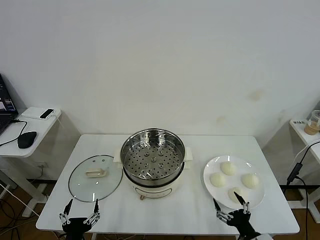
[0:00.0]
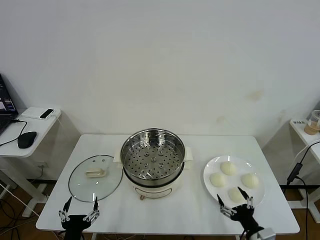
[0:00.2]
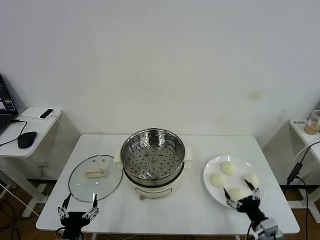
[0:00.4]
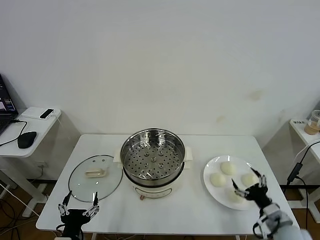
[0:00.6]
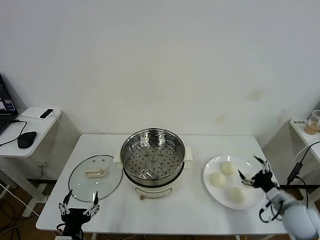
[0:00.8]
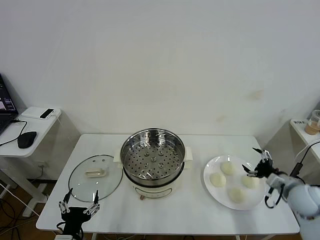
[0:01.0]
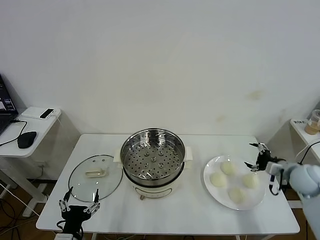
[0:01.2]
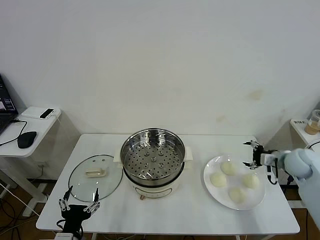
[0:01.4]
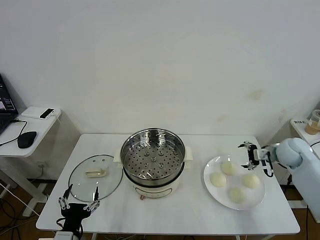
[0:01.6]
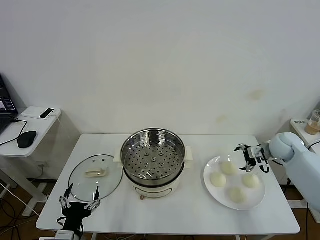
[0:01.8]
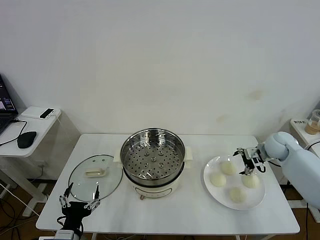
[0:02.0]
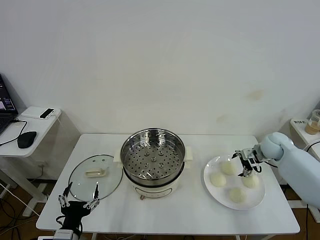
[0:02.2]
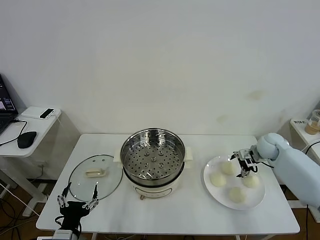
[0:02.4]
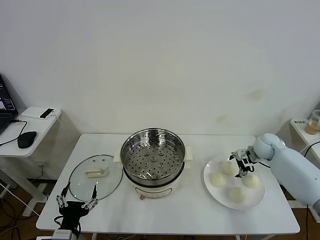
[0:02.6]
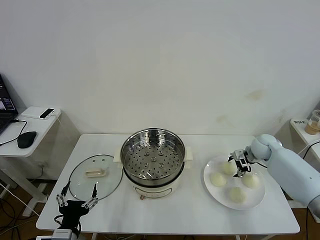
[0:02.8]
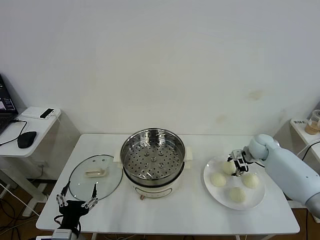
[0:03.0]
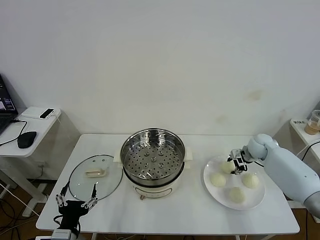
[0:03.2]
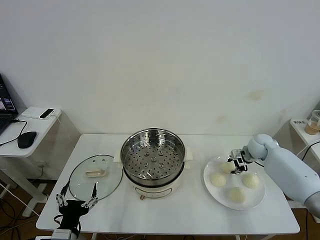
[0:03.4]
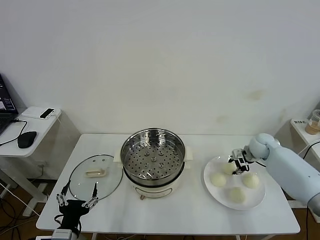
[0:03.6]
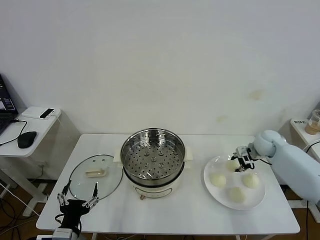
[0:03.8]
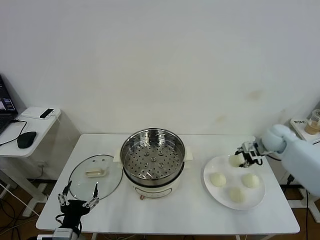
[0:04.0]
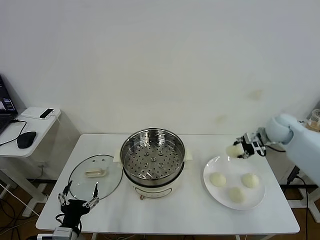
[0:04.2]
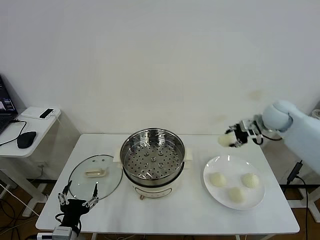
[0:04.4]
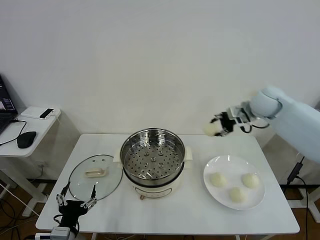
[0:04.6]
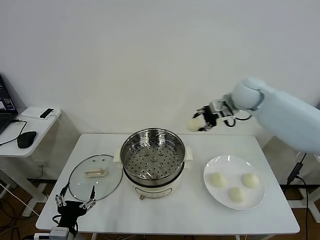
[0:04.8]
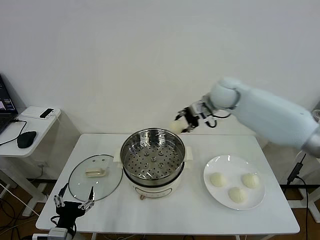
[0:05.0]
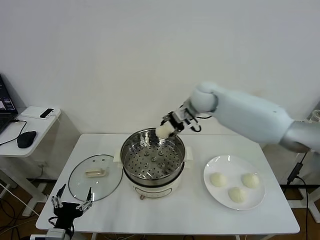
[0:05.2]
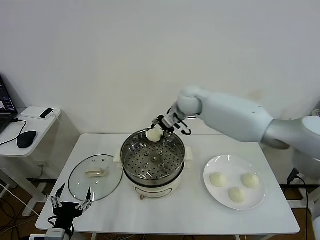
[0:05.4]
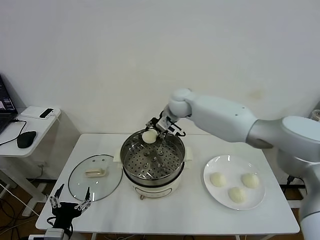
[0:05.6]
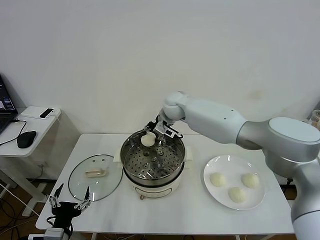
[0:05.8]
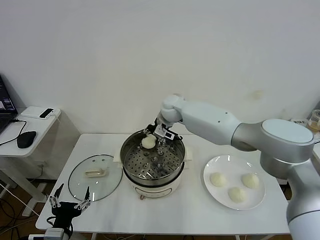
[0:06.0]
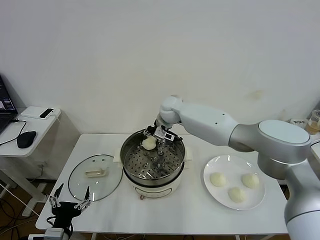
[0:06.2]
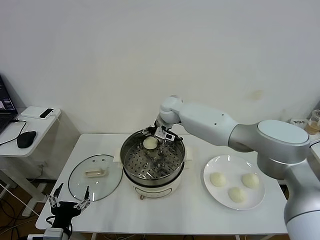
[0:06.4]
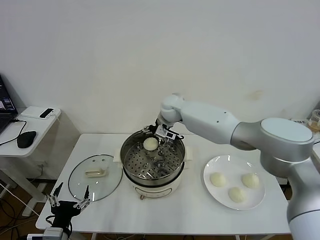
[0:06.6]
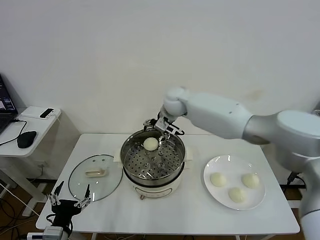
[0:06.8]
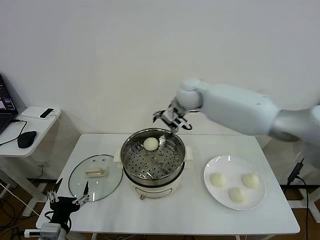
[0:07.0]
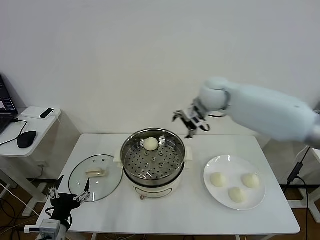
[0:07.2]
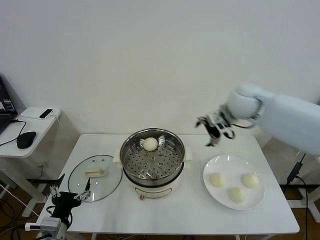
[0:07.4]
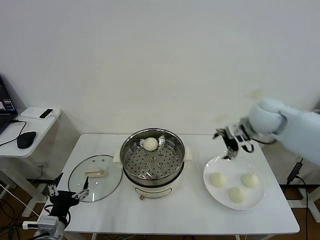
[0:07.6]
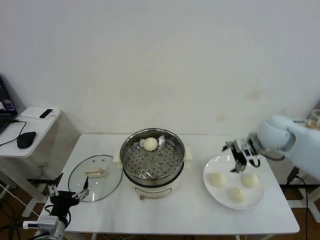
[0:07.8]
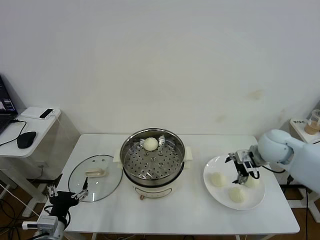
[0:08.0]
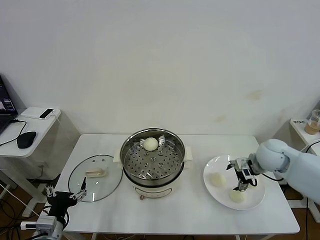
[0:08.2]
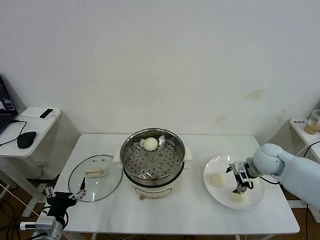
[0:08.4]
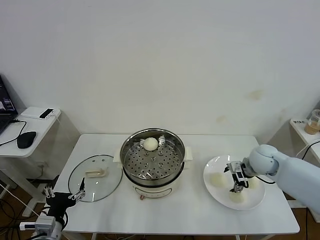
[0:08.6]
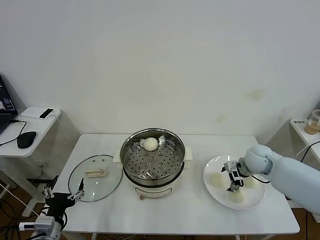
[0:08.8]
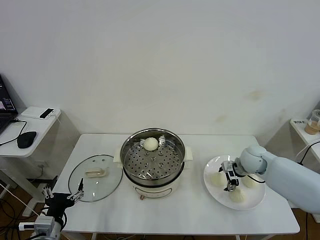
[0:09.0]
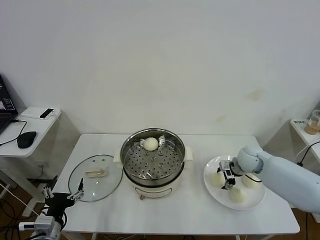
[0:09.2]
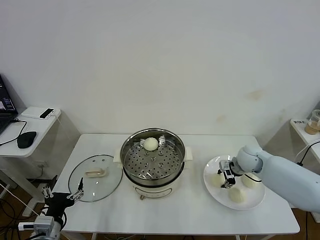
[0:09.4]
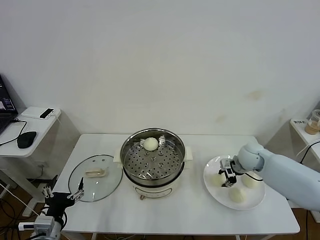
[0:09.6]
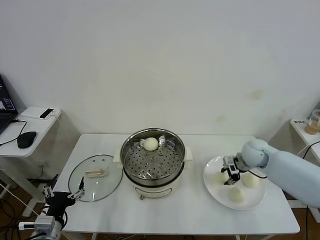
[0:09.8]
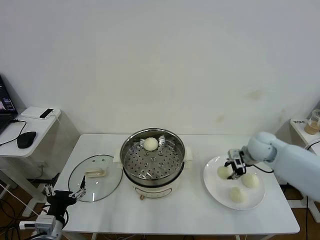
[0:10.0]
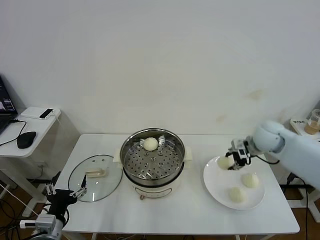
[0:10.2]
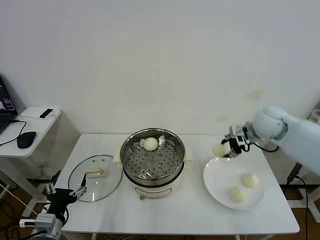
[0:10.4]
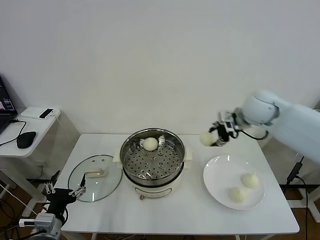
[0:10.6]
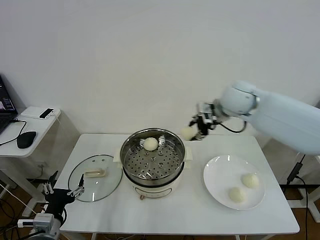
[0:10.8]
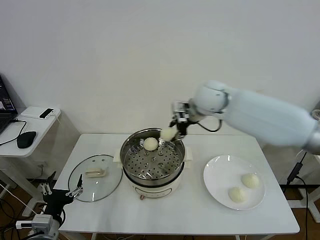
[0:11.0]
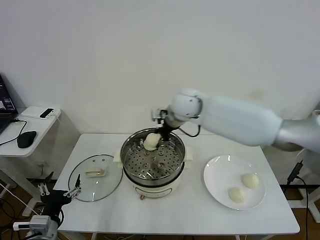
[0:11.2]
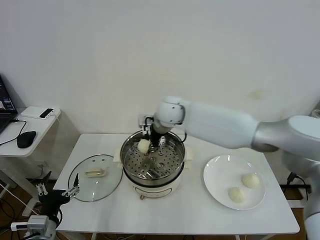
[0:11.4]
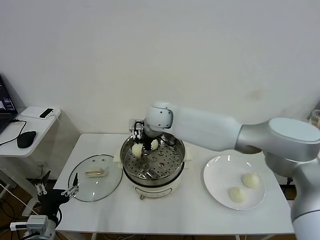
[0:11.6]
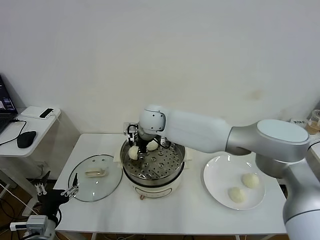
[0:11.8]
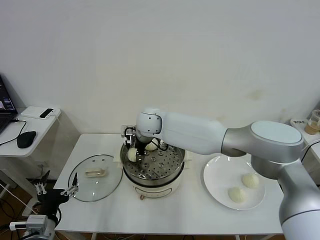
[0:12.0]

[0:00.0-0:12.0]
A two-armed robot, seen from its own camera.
Task of the whole recording: take steamed baozi put them in steamer then cover it.
Step, 0:00.0 to 0:03.4: Grasp the baozi in the plate with right gripper.
Step, 0:03.6 to 0:06.6: Place the baozi on the steamer with right gripper.
Step, 0:06.8 to 0:09.6: Grasp the baozi in the plate with right gripper.
0:01.6 to 0:03.0: The right gripper is displaced forward, downward and to the left by roughly 10 cm, and closes its fingers.
0:03.0 to 0:04.4: The right gripper is displaced upward by roughly 15 cm, and closes.
0:04.4 to 0:06.0: The right gripper goes some 35 cm to the left.
0:06.0 to 0:07.6: The right gripper shifts approximately 30 cm to the right and backward, and opens.
0:07.6 to 0:09.0: The right gripper travels downward by approximately 20 cm.
0:09.0 to 0:10.4: The right gripper travels upward by some 15 cm, and closes its fingers.
0:10.4 to 0:12.0: The right gripper moves to the left, some 35 cm.

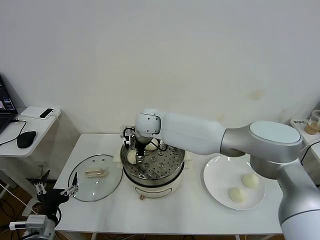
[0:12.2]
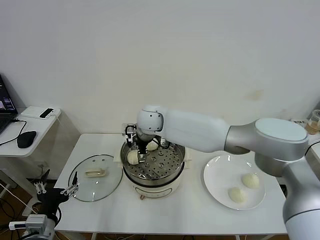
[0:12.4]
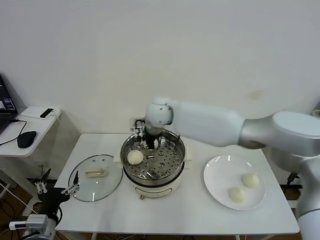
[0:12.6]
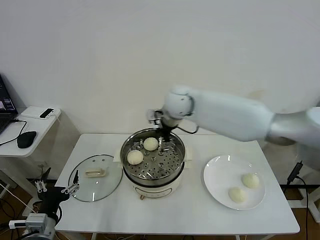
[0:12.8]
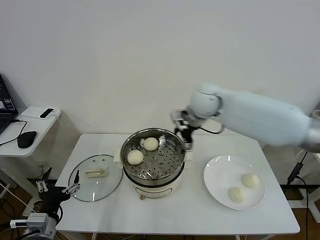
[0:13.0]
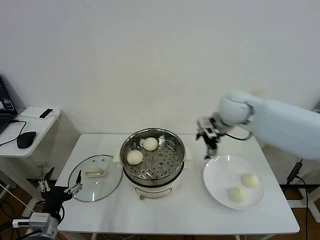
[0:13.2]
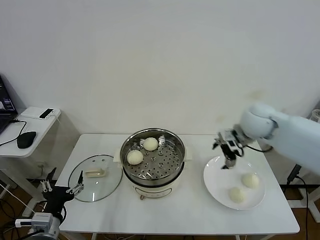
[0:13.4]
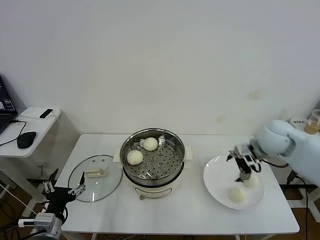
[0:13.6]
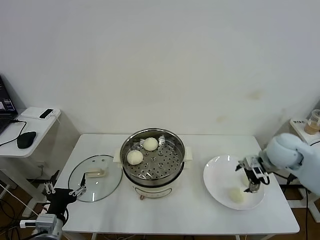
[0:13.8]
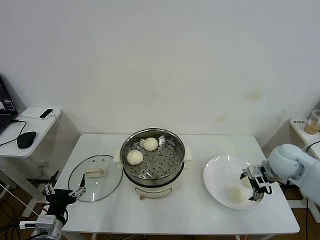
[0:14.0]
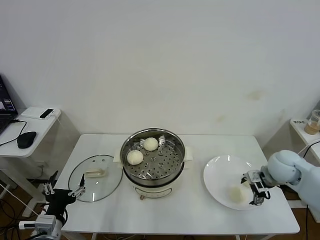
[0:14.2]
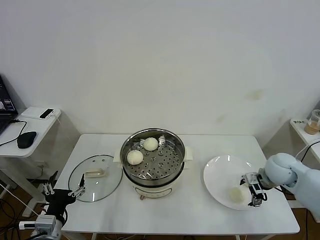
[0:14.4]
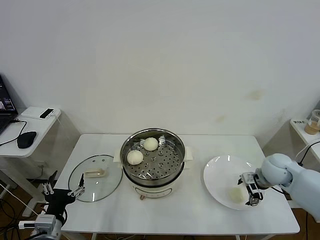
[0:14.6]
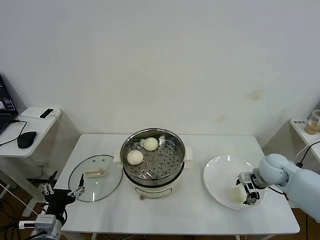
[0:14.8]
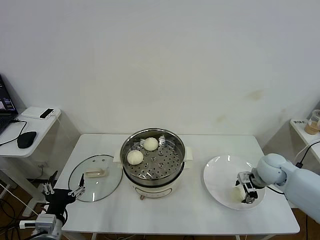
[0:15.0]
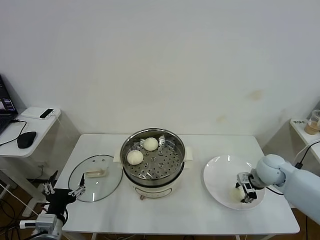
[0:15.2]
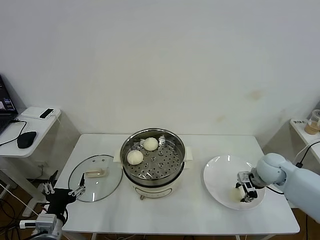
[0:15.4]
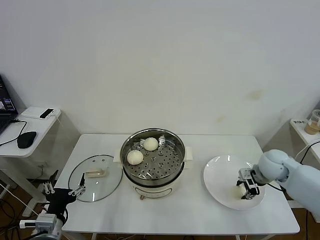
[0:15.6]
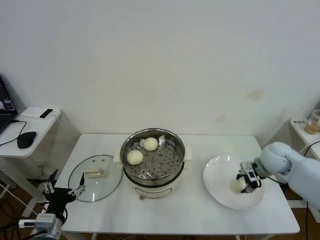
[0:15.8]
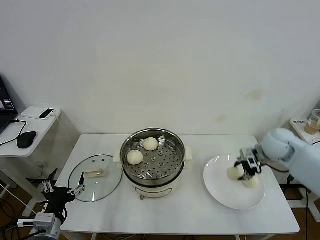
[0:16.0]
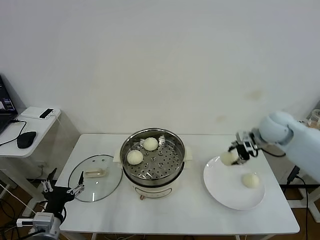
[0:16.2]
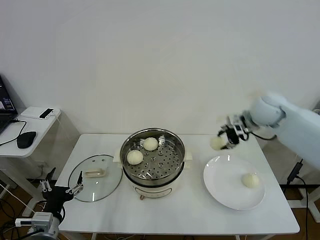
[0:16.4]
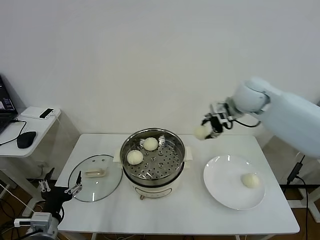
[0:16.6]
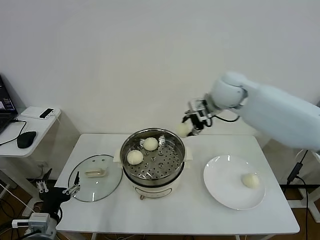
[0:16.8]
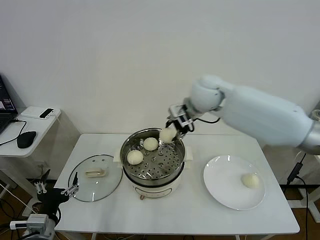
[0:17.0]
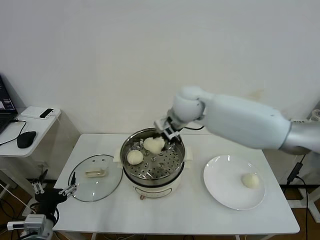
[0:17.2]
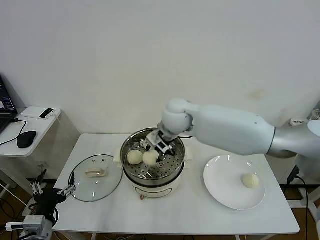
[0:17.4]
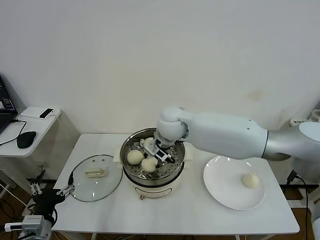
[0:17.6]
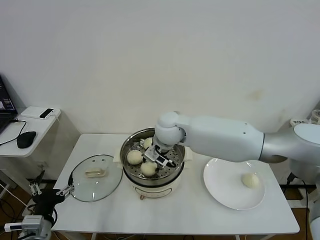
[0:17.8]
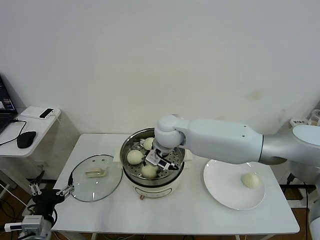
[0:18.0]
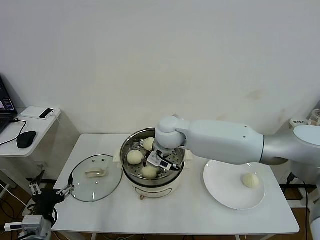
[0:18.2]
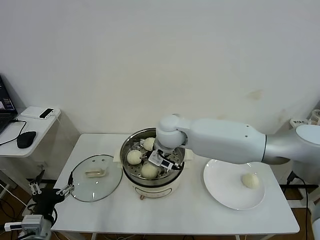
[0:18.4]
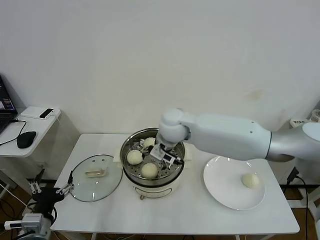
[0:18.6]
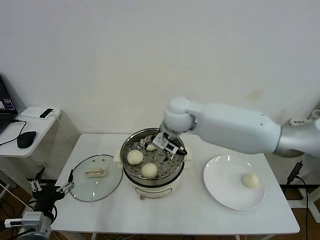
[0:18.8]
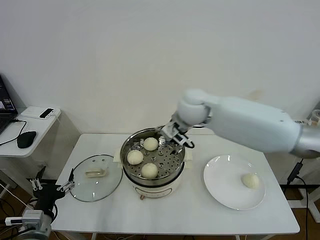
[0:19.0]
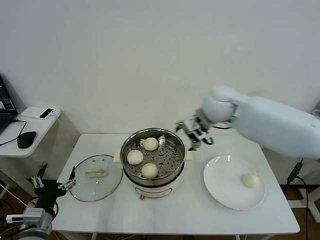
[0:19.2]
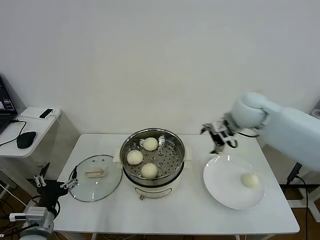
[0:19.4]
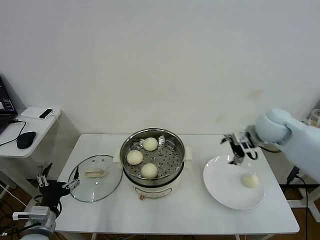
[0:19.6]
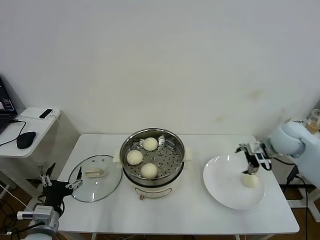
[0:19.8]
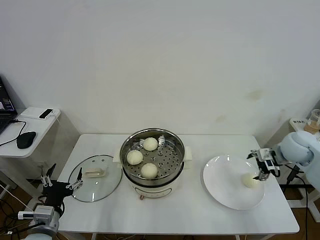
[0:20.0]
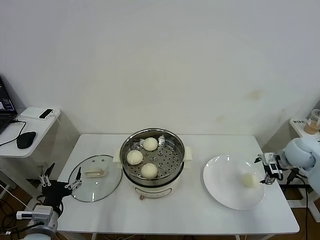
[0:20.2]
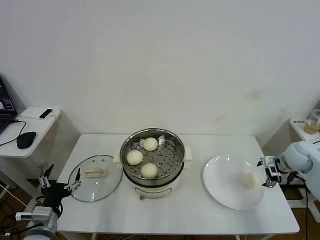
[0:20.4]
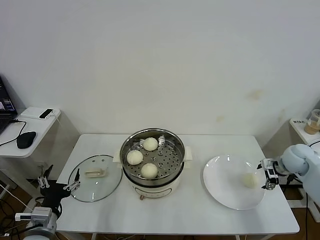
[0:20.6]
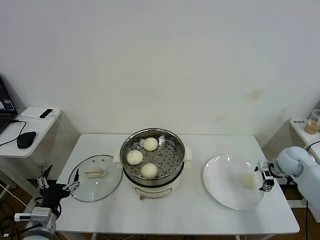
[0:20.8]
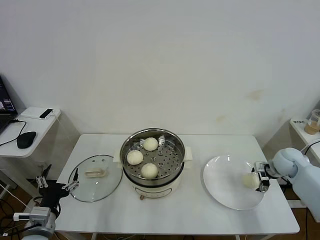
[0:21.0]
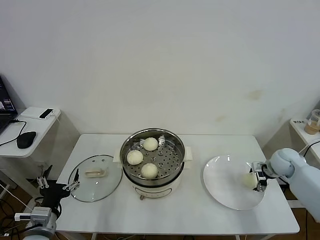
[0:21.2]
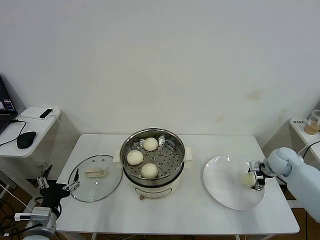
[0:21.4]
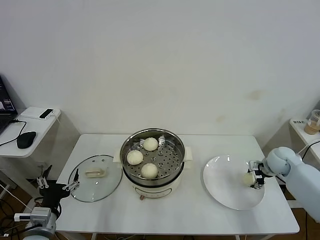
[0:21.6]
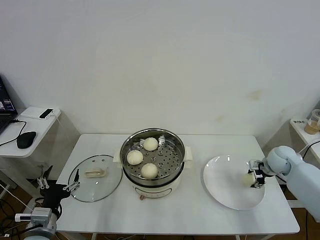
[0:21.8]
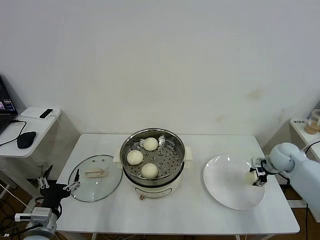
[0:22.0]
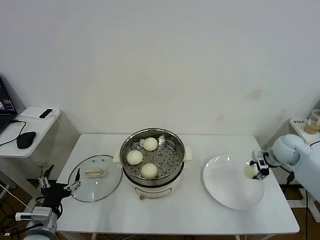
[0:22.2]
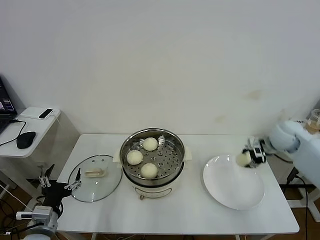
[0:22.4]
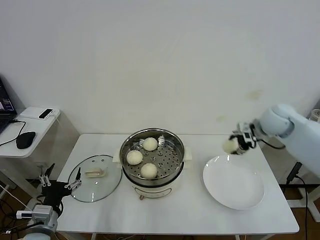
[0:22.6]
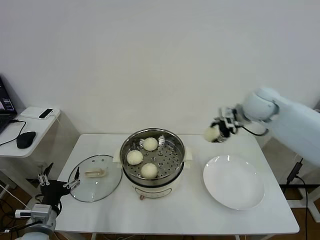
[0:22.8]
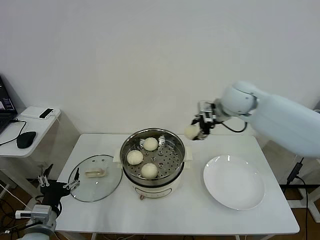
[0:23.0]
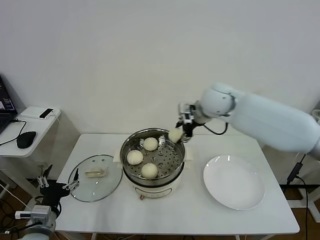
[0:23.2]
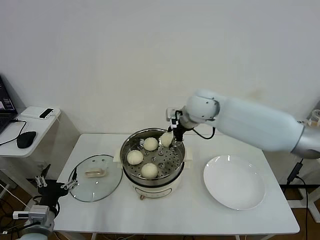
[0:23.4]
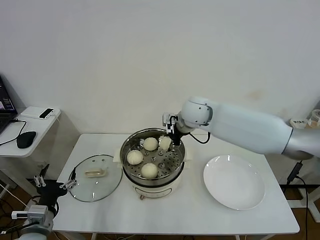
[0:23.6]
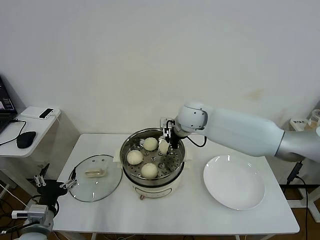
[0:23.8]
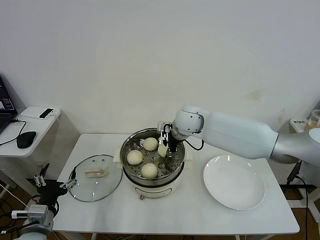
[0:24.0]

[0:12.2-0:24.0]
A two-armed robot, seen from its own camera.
Task of the whole recording: take steamed baozi put them in steamer then cover it.
Step, 0:12.6 to 0:15.4: Grasp the baozi in the plate with right gripper.
Step, 0:15.6 to 0:18.4: Place the baozi on the steamer with right gripper.
Step, 0:18.8 to 0:22.0: Grasp the baozi in the plate with right gripper.
0:12.2 to 0:13.6: The right gripper travels to the right by approximately 40 cm.
0:13.6 to 0:15.2: The right gripper shifts about 15 cm downward, and closes its fingers.
0:15.2 to 0:16.6: The right gripper travels upward, to the left and forward by roughly 30 cm.
0:16.6 to 0:18.2: The right gripper moves to the left and downward, about 25 cm.
0:18.2 to 0:19.6: The right gripper goes approximately 30 cm to the right, and opens up.
0:19.6 to 0:21.0: The right gripper shifts some 20 cm downward and to the right.
0:21.0 to 0:22.6: The right gripper shifts roughly 20 cm upward and to the left, and closes.
0:22.6 to 0:24.0: The right gripper shifts some 25 cm to the left.
